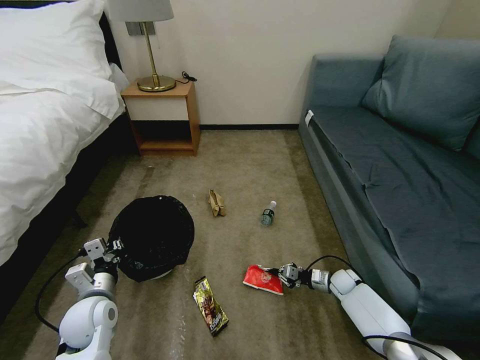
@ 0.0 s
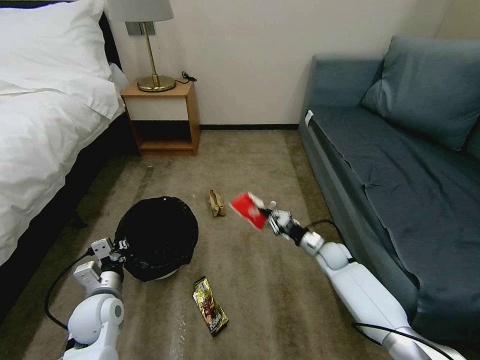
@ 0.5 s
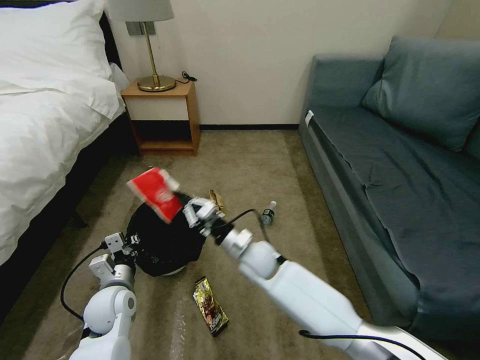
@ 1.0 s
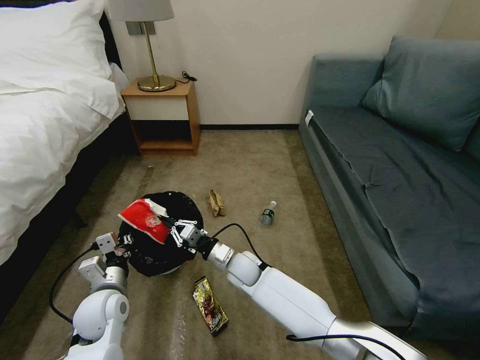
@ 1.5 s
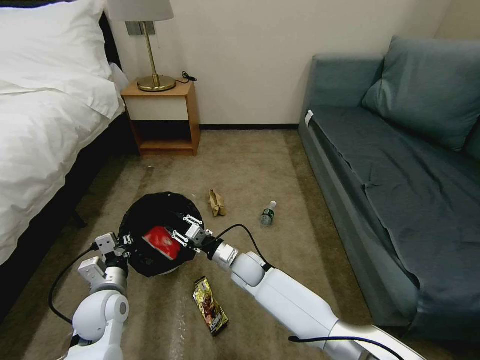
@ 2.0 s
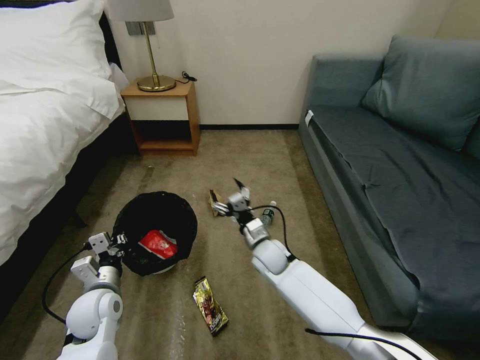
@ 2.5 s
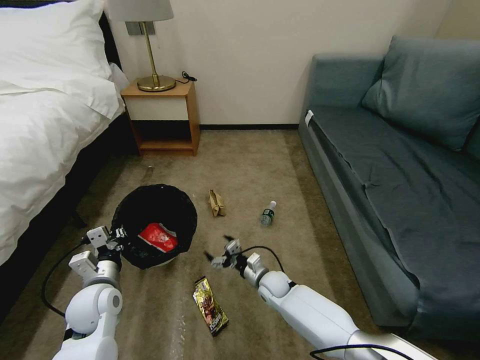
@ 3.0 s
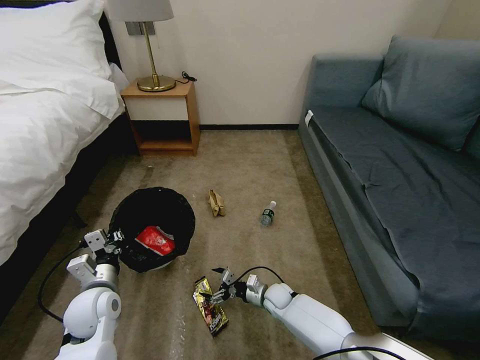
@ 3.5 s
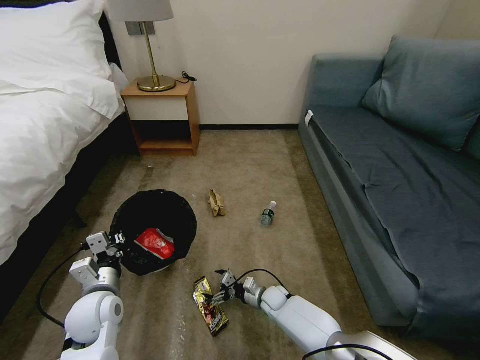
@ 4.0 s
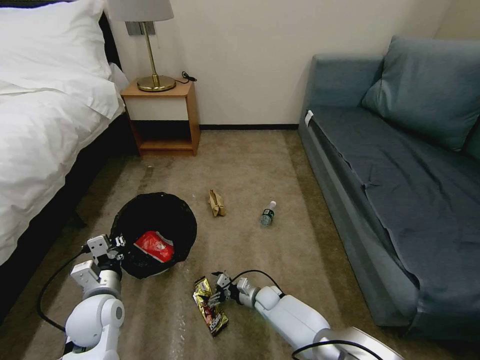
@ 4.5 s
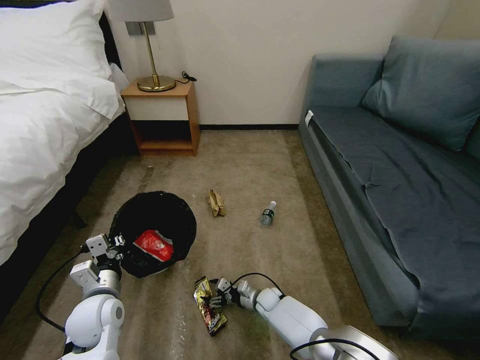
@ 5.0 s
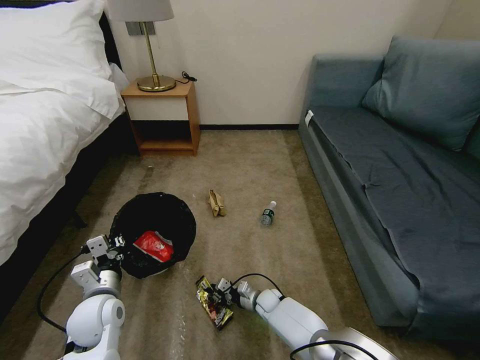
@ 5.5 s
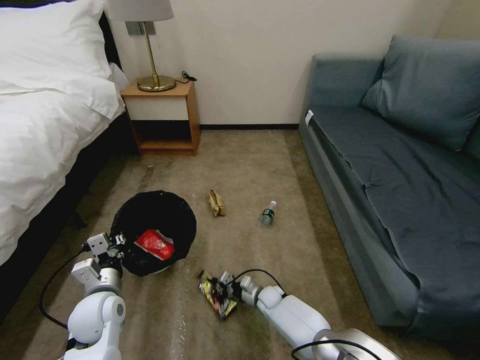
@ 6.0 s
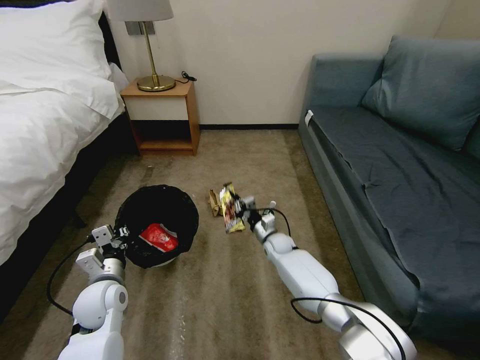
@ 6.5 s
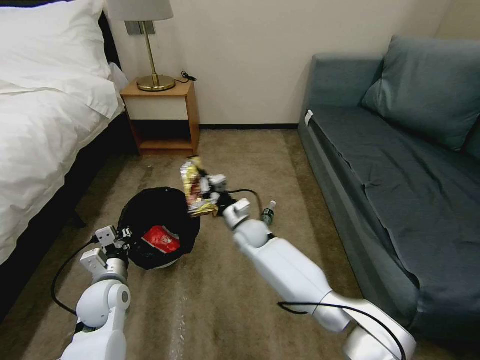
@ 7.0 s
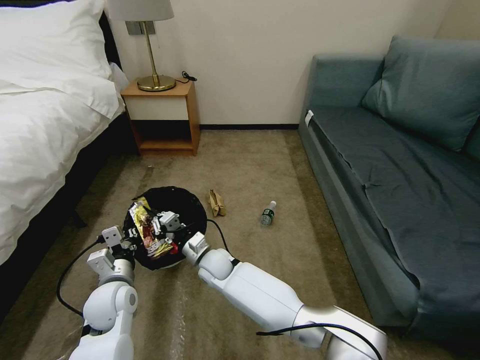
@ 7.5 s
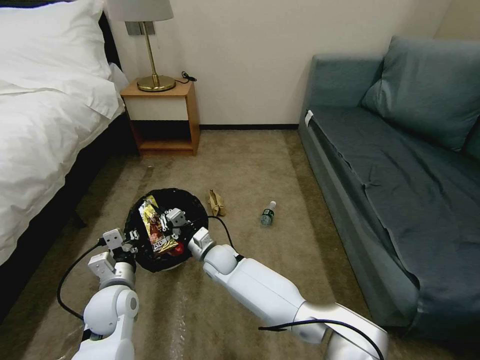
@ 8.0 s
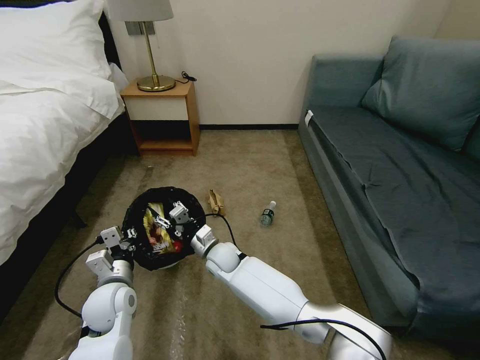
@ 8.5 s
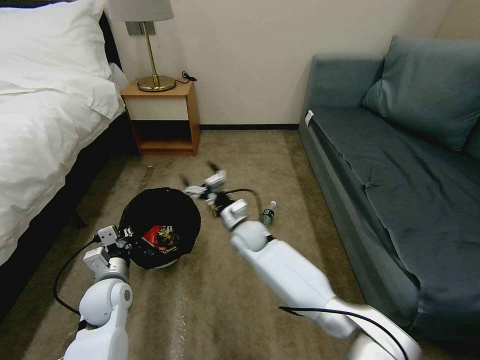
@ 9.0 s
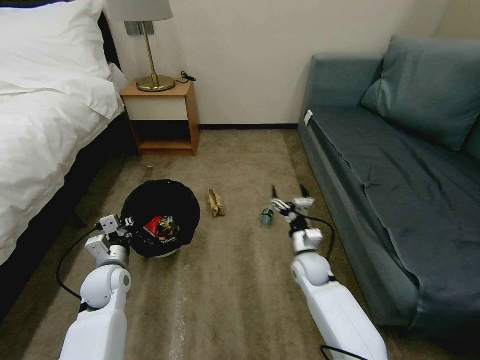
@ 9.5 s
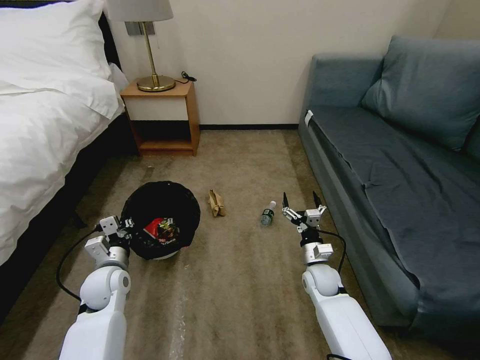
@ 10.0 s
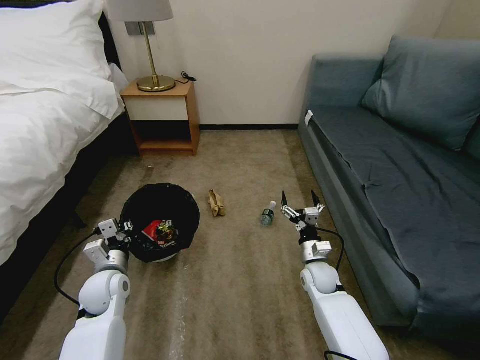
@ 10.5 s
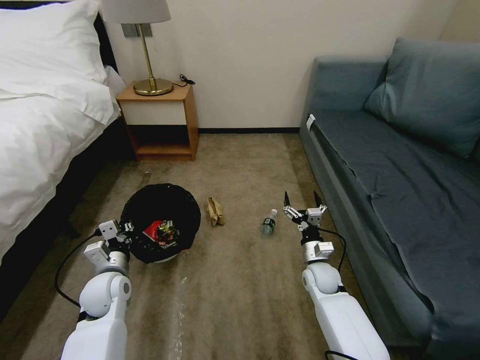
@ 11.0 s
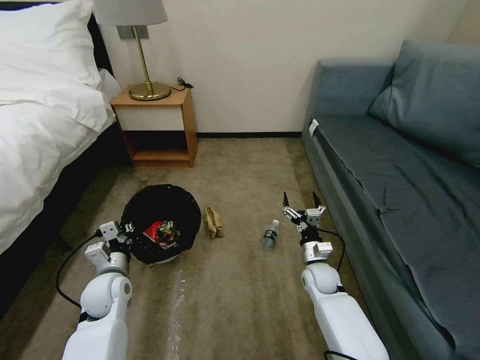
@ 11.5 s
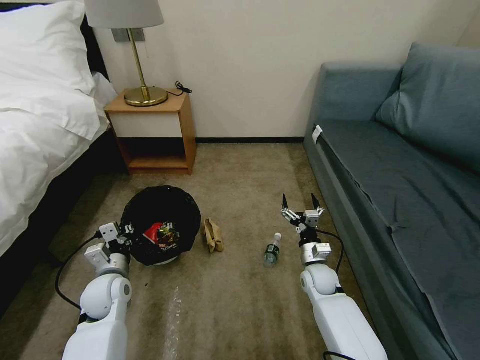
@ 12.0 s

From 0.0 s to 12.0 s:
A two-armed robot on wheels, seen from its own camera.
Task of the whole recording: Pick up the trash bin, then pick up the garbage on the floor and place it into the trash bin.
From 0.0 s to 2.0 s: The right gripper is displaced to the left by roughly 35 cm.
From 2.0 s to 4.0 s: The right gripper is displaced downward and to the right by approximately 20 cm, and opens up.
From 4.0 s to 6.0 s: The right gripper closes up.
From 6.0 s to 8.0 s: The right gripper travels upward and to the left by roughly 25 cm.
From 8.0 s to 10.0 s: The right gripper moves to the right, approximately 30 cm, and opens; the left gripper travels forward by about 5 cm.

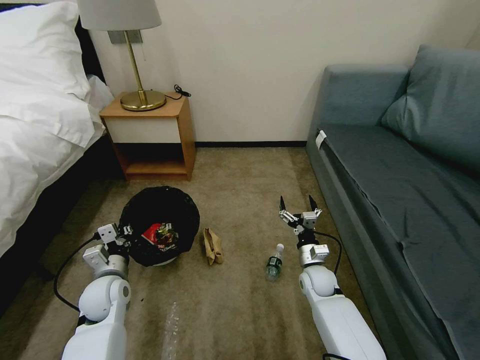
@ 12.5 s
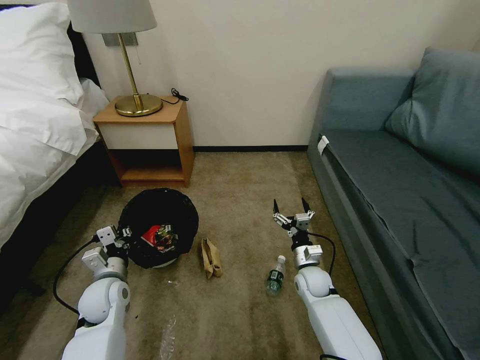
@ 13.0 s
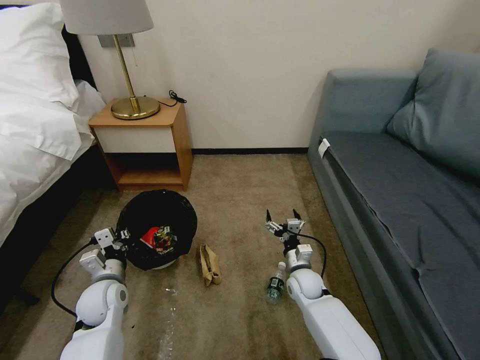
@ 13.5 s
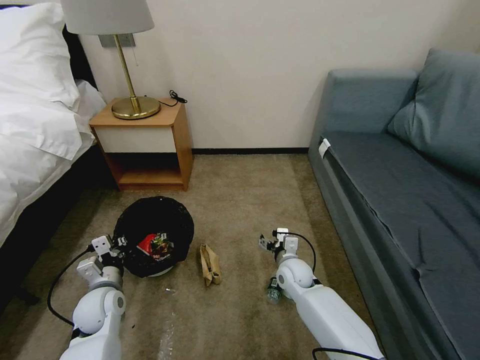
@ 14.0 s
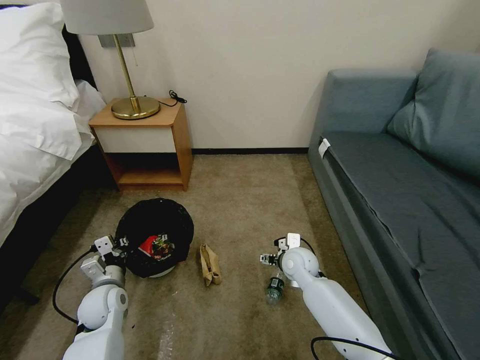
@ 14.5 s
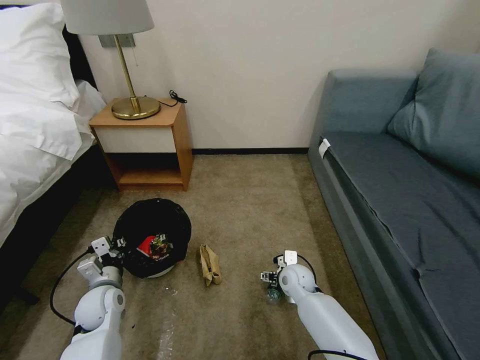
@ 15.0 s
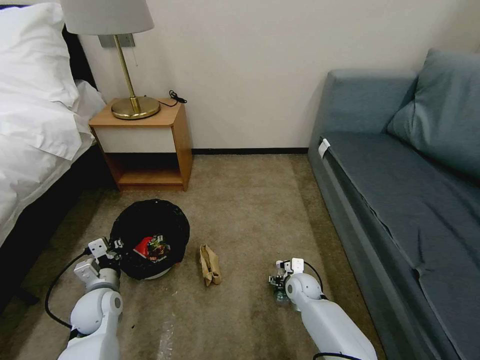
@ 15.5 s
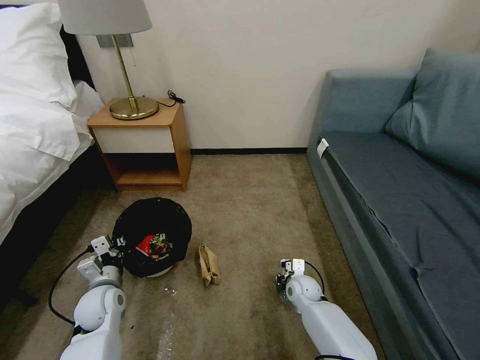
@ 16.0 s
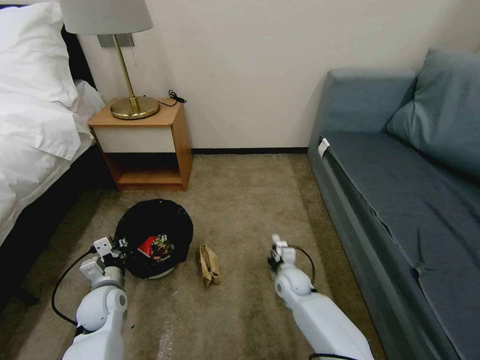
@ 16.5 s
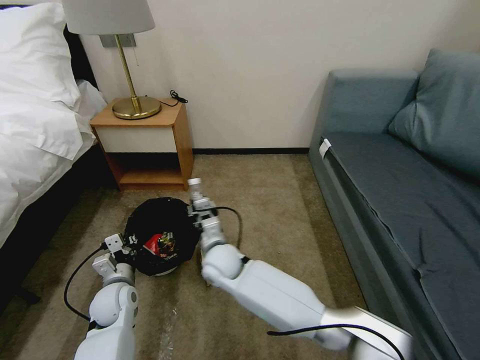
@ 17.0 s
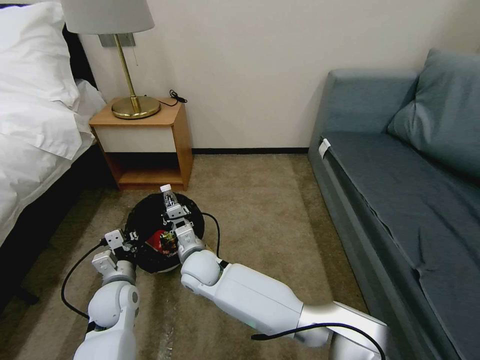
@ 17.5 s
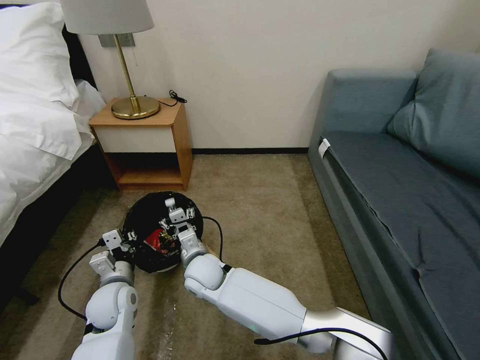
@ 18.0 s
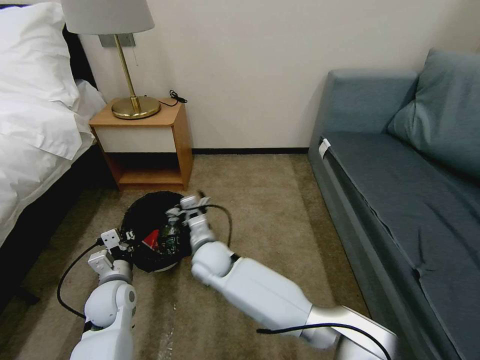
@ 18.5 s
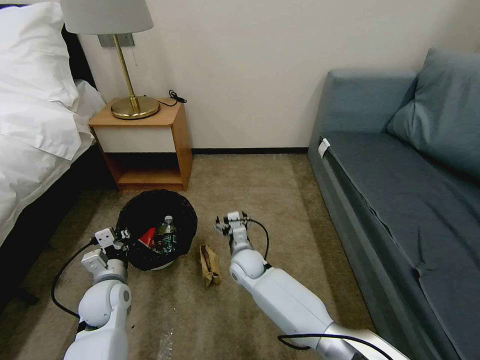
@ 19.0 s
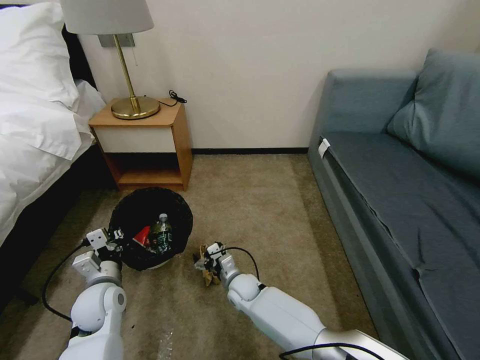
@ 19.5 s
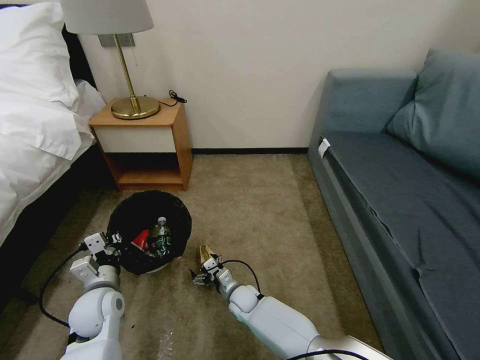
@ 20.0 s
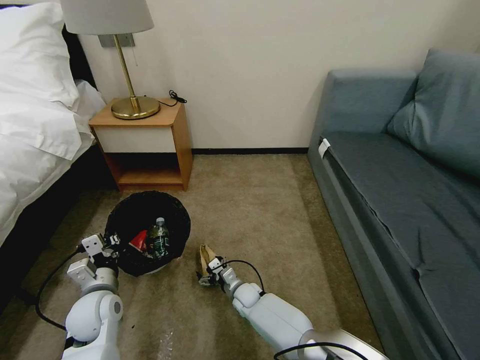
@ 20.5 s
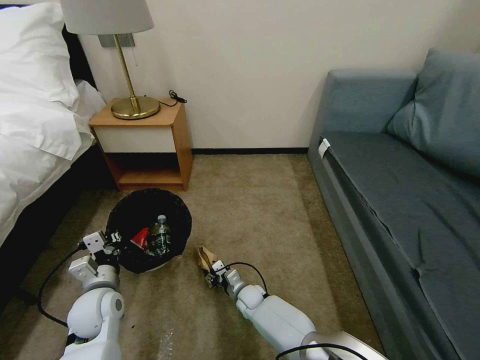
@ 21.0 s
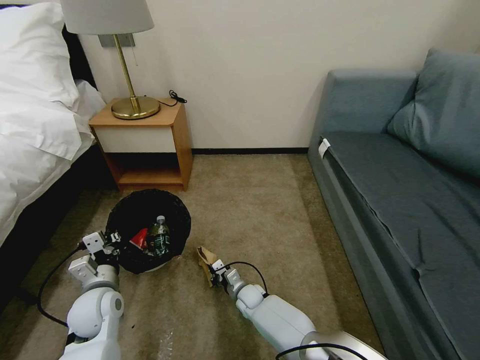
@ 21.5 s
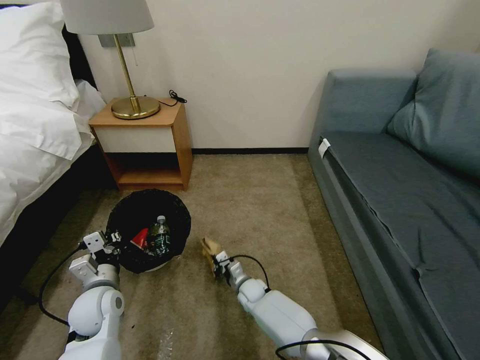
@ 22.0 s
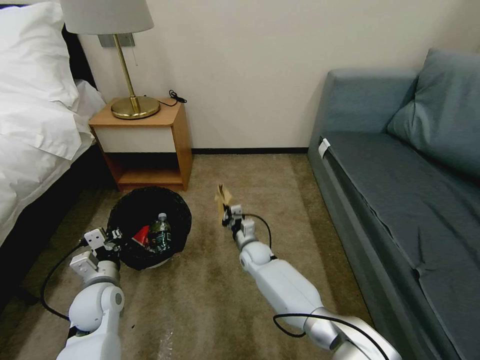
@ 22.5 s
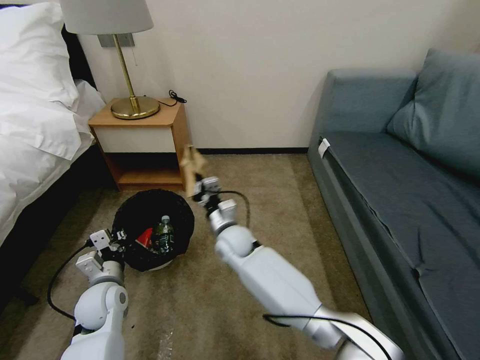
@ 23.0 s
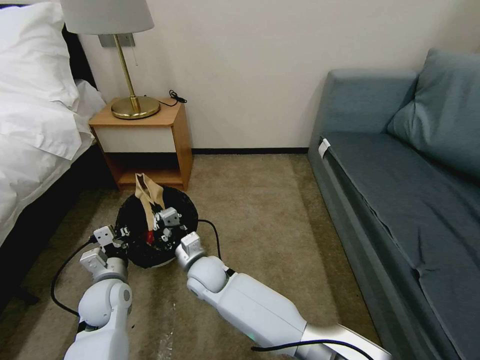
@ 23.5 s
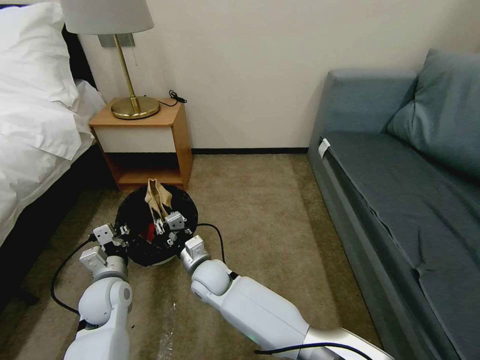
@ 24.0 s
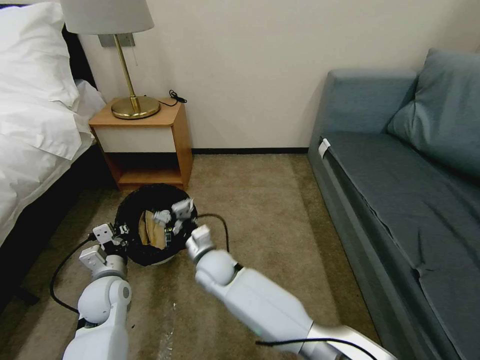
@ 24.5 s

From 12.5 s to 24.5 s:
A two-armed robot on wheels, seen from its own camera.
Task of the whole recording: Pick up the trash bin, then pick up the garbage on the floor and place it into the trash bin.
From 12.5 s to 14.5 s: The right gripper is displaced to the left and upward by approximately 10 cm.
From 14.5 s to 16.5 s: The right gripper moves downward, approximately 10 cm, and closes.
From 16.5 s to 18.5 s: The right gripper goes roughly 25 cm to the left and upward, and opens.
From 18.5 s to 20.5 s: The right gripper shifts some 25 cm downward and to the right.
From 20.5 s to 22.5 s: The right gripper moves upward and forward, about 15 cm, and closes.
From 22.5 s to 24.5 s: The right gripper moves to the left, backward and upward, some 20 cm, and opens up.

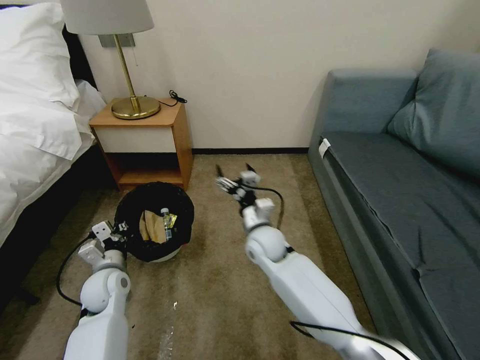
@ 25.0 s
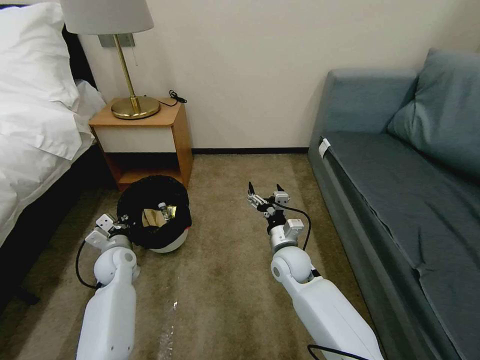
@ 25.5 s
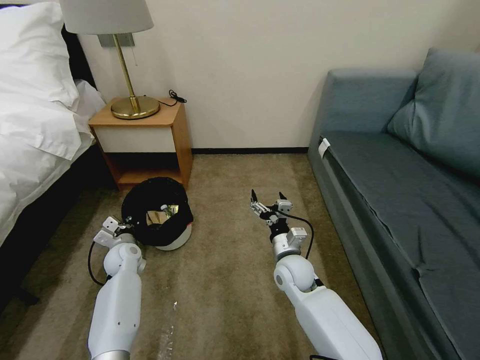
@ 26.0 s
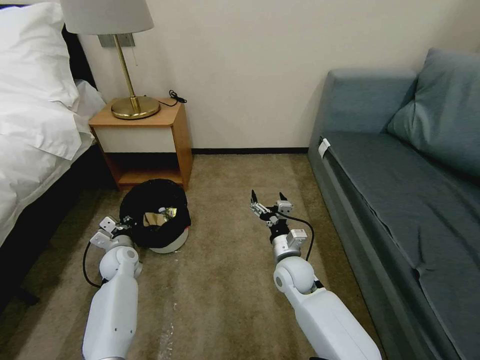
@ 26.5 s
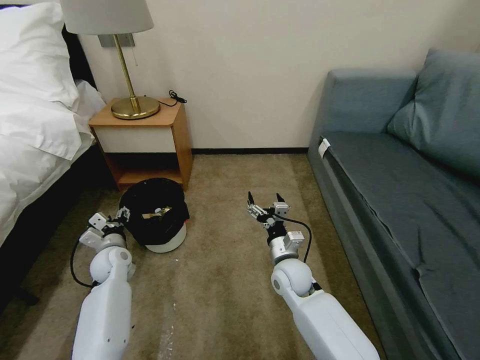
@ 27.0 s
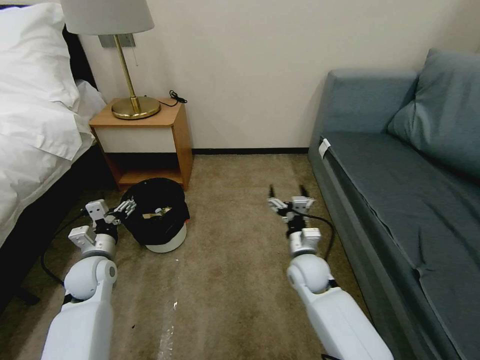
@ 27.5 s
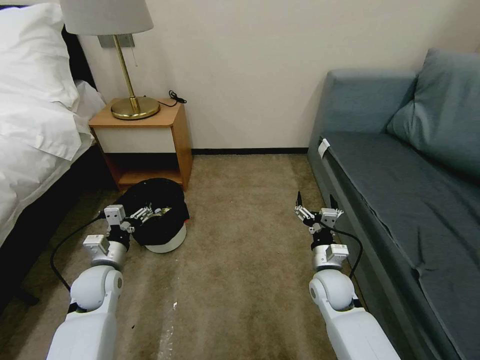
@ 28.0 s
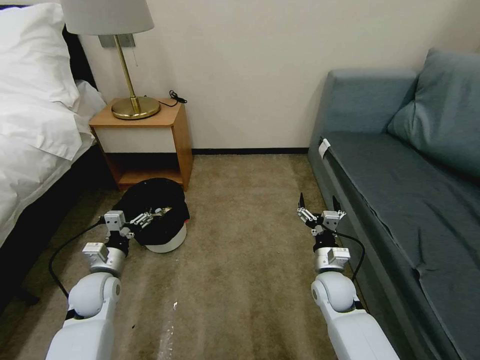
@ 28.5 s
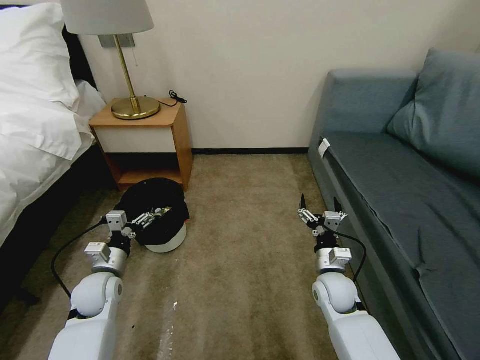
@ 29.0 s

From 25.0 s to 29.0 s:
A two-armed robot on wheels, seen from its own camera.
Task of the whole recording: Pick up the trash bin, then pick up the garbage on the floor and place it into the trash bin.
From 25.0 s to 27.0 s: The left gripper is displaced forward by roughly 10 cm, and opens; the right gripper shifts about 10 cm to the right, backward and downward.
From 27.0 s to 29.0 s: The left gripper is displaced backward by about 10 cm. The right gripper shifts roughly 10 cm to the right.
